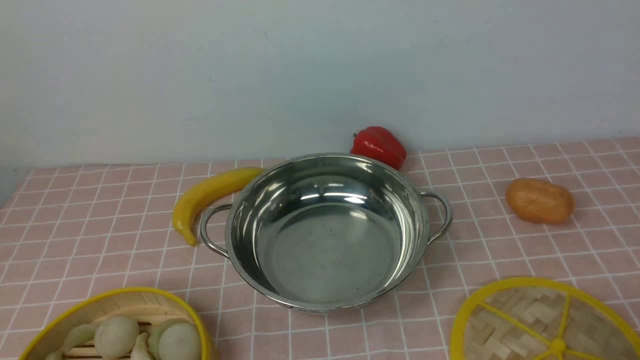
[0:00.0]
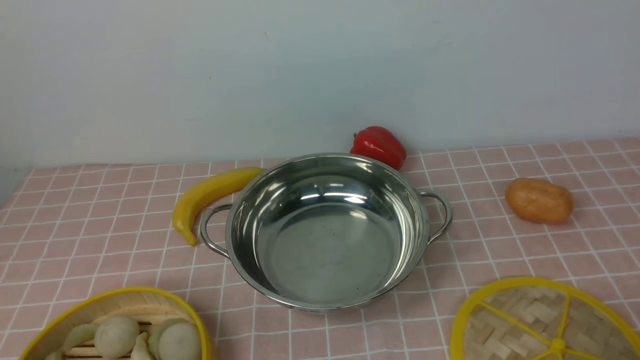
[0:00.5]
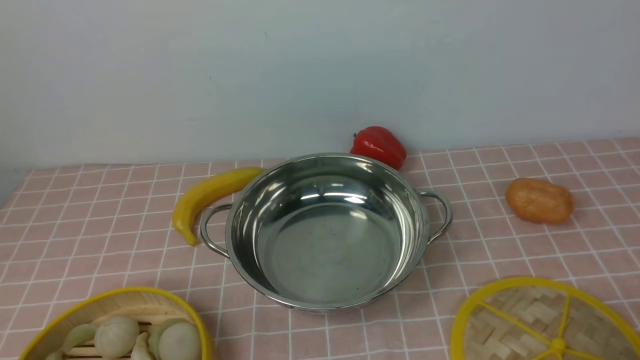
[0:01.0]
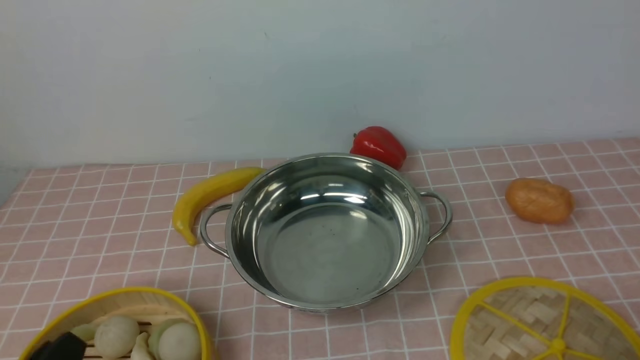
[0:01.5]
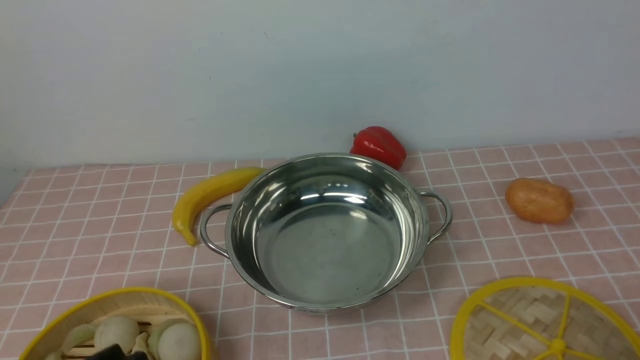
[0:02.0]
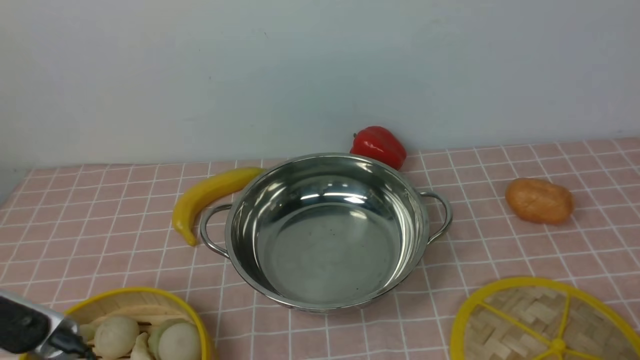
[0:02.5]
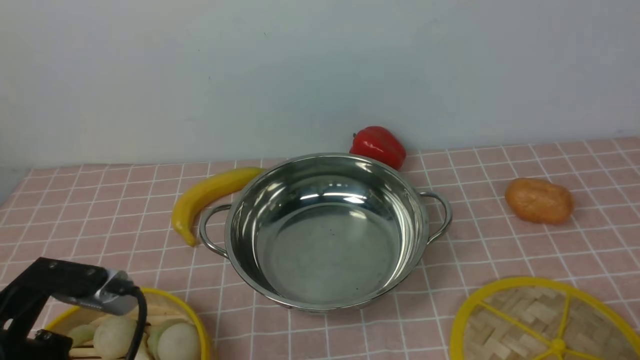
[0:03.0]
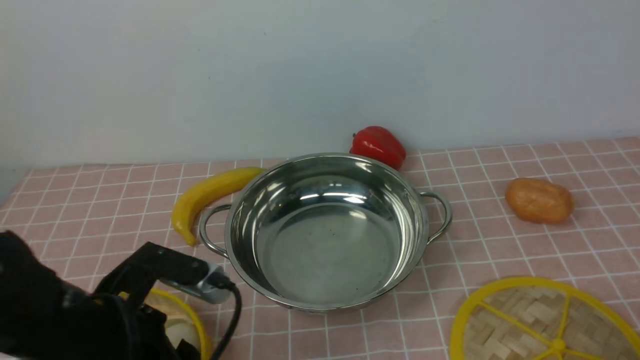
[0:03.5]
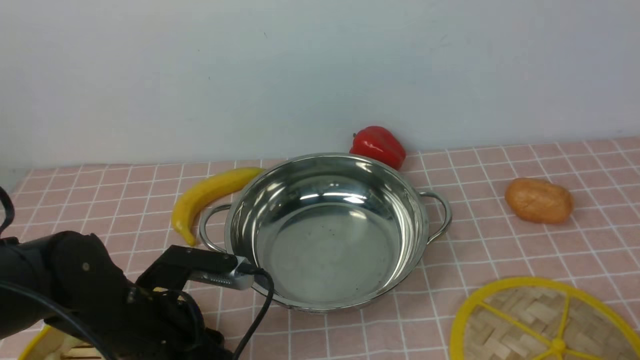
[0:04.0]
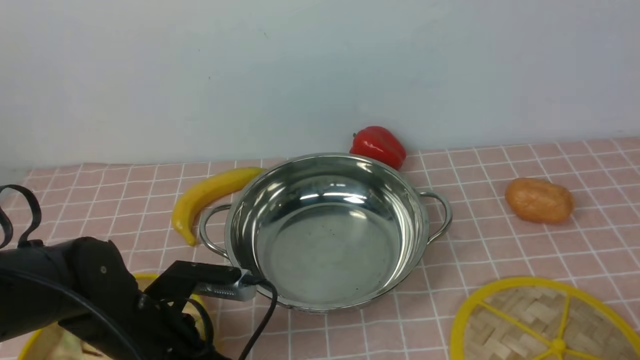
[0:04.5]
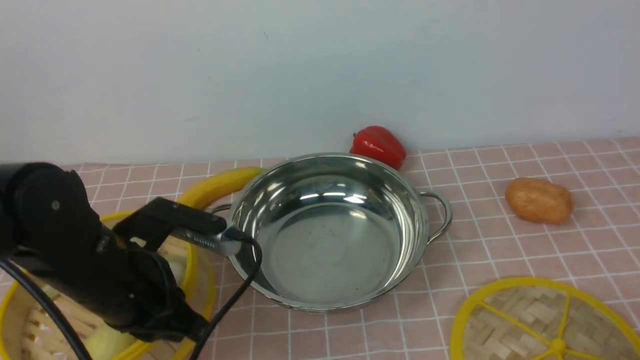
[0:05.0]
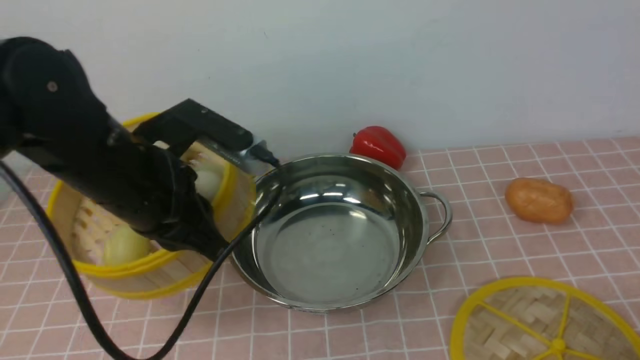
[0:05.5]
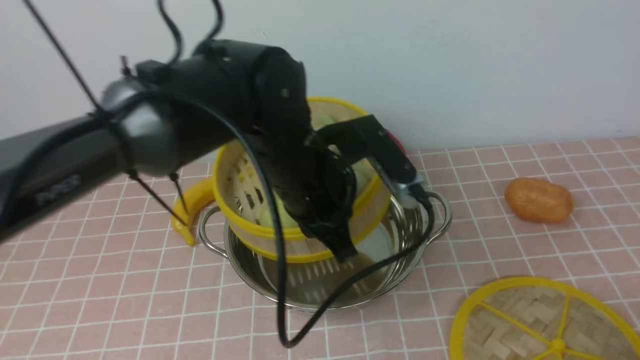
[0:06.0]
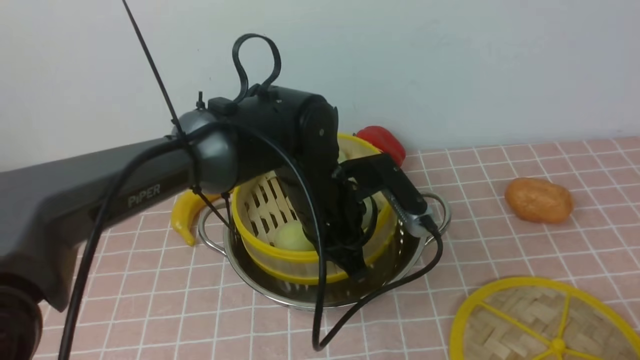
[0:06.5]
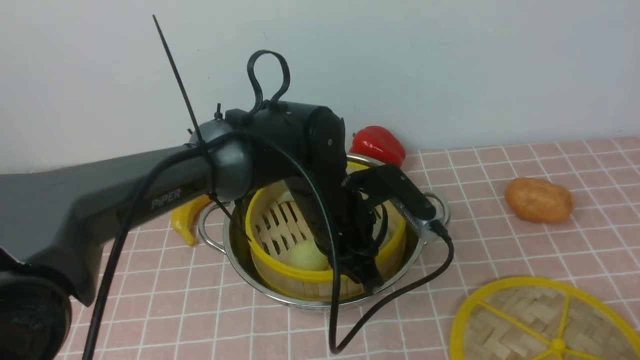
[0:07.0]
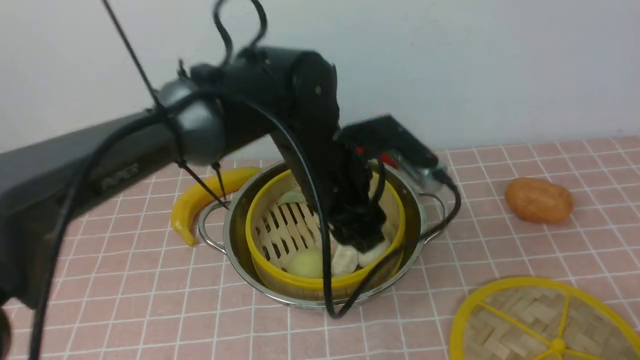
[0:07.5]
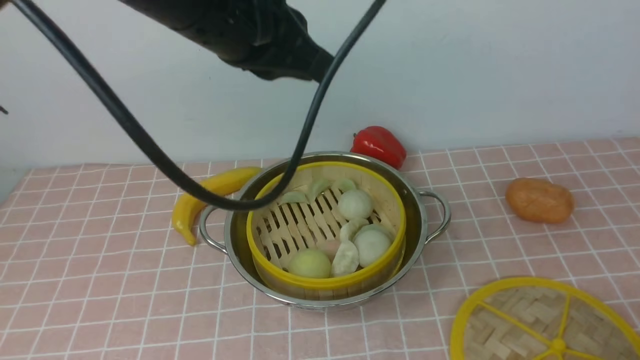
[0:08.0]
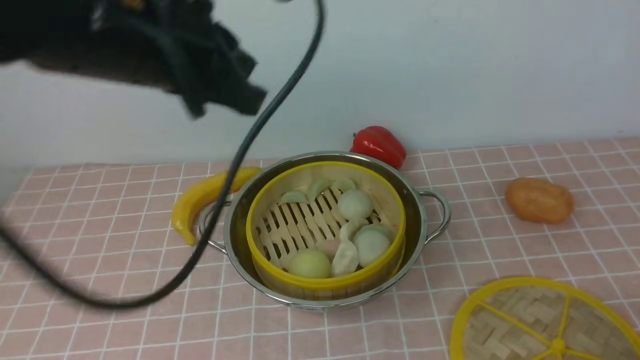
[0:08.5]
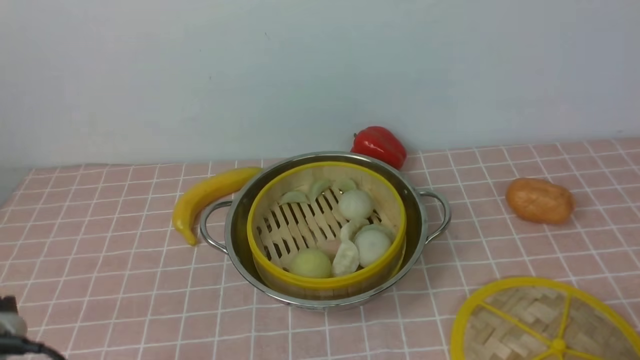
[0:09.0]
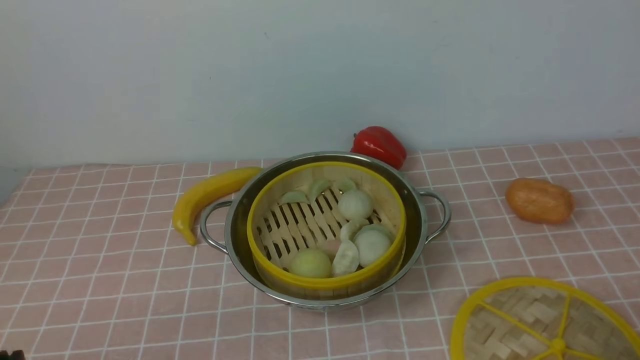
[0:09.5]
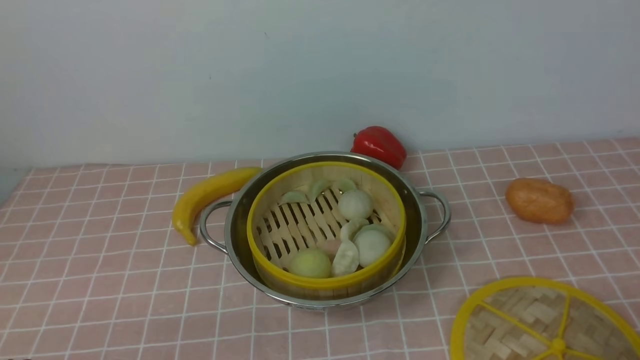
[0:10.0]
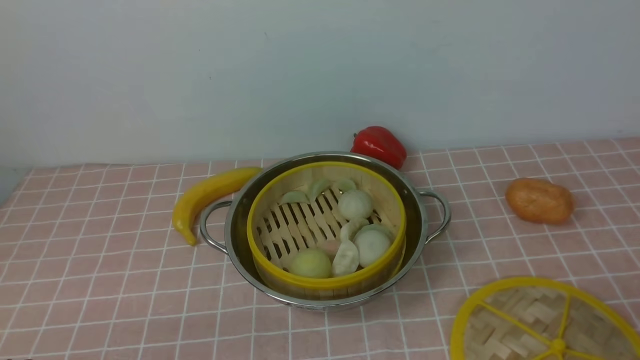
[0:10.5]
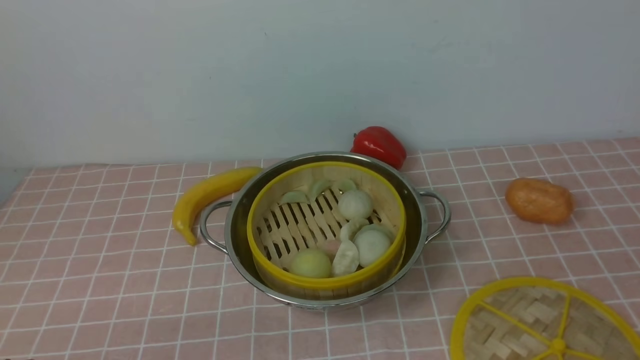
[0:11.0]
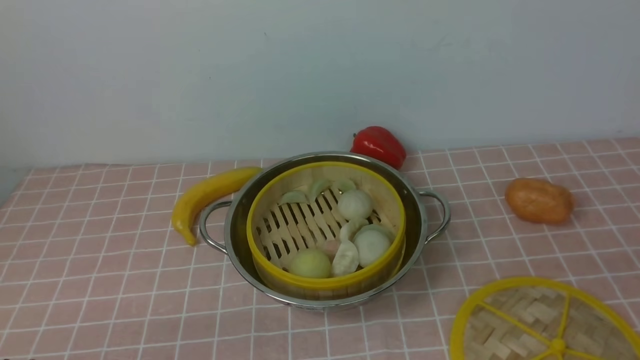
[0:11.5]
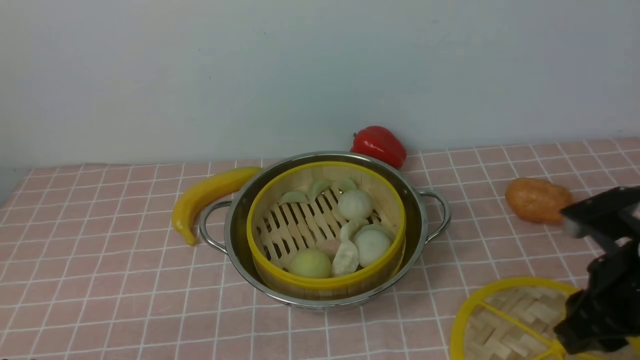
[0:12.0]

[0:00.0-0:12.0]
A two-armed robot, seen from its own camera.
Task of the whole recording: place the steamer in the pot on the pink tablecloth, and put the lid on the steamer.
Step, 0:00.0 to 0:04.5: use the left arm to lift the steamer closest to it.
Step, 0:05.0 to 0:07.0: use the left arm to put the steamer into the iron steamer pot in the middle.
0:02.0 to 0:04.0: The left gripper heads forward and downward, covering about 20 cm.
0:04.0 to 0:06.0: The left gripper travels to the right, forward and upward by about 20 cm, and closes up.
0:06.0 to 0:08.0: The left gripper goes about 15 cm upward, and opens and closes again.
0:08.0 to 0:10.0: The left gripper heads backward, downward and to the left, covering about 40 cm.
0:10.0 to 0:12.0: The right gripper travels forward by some 15 cm.

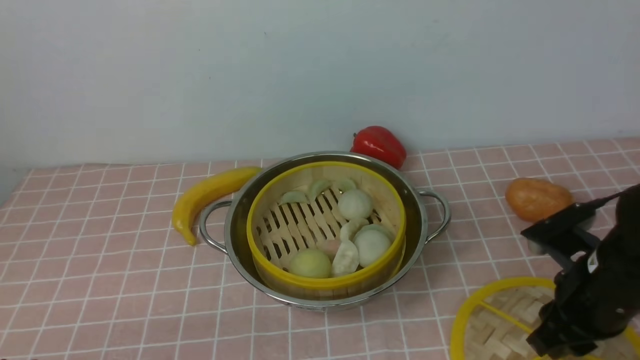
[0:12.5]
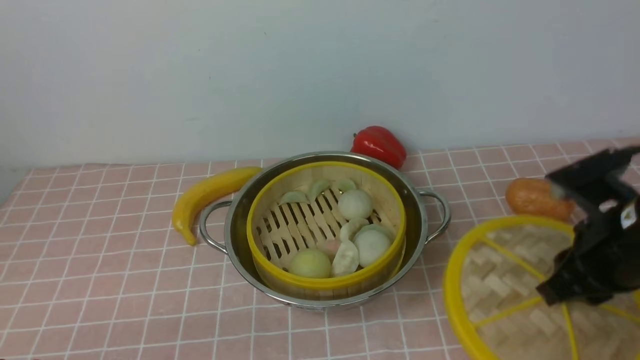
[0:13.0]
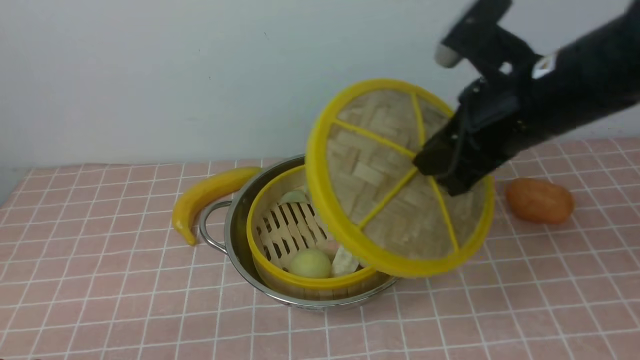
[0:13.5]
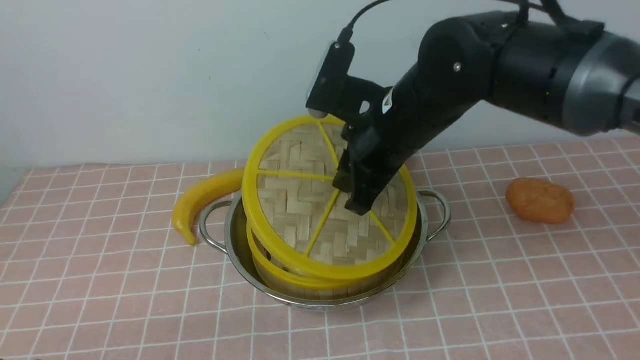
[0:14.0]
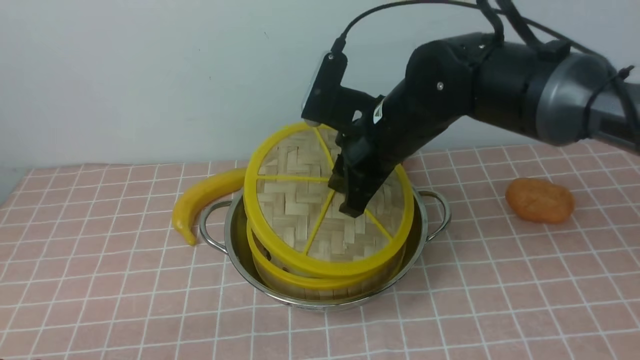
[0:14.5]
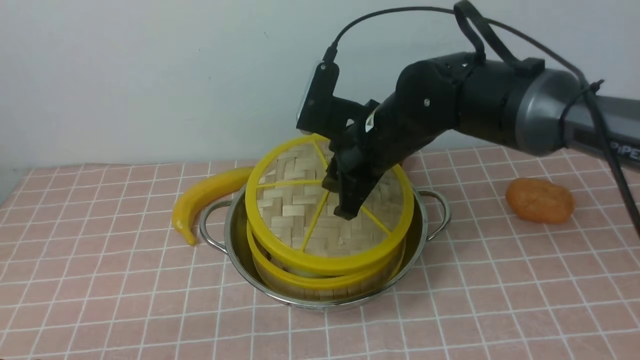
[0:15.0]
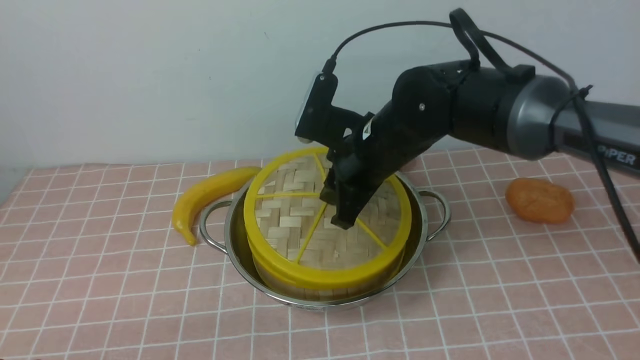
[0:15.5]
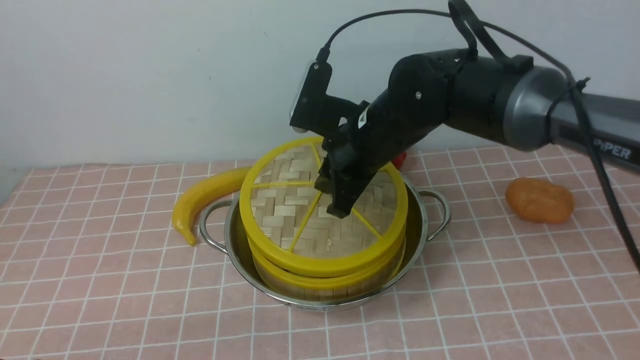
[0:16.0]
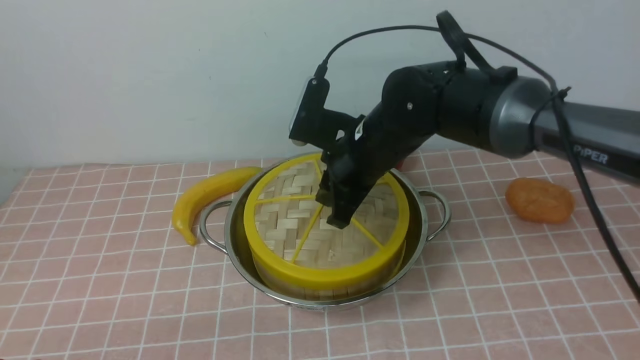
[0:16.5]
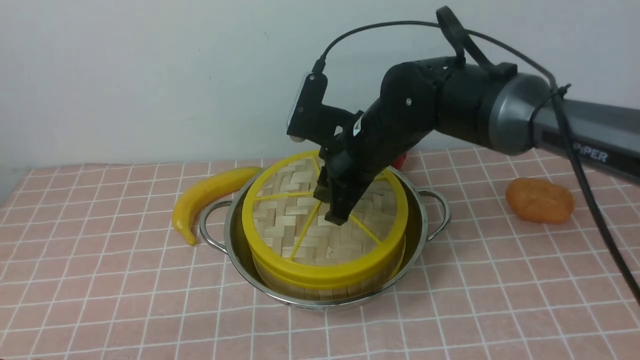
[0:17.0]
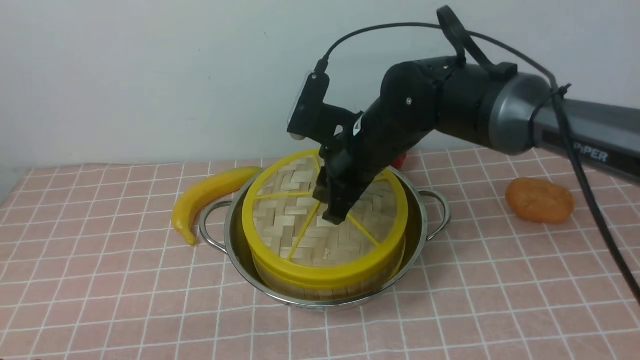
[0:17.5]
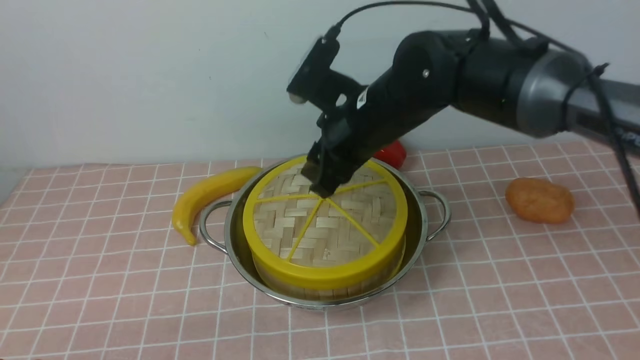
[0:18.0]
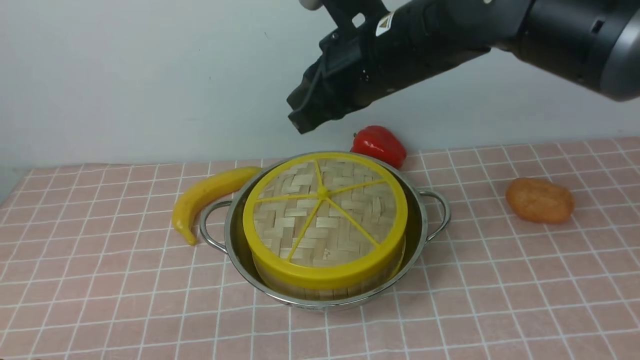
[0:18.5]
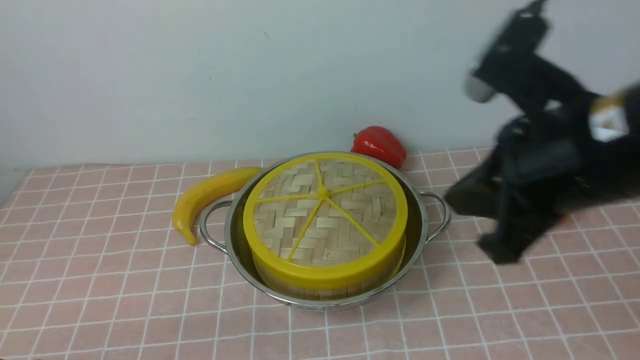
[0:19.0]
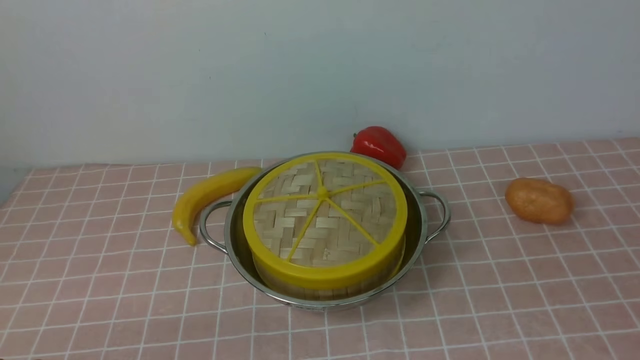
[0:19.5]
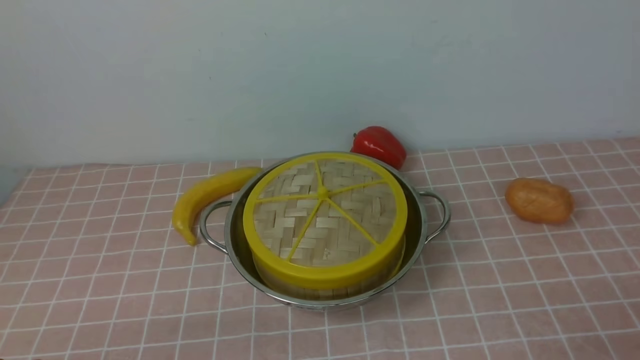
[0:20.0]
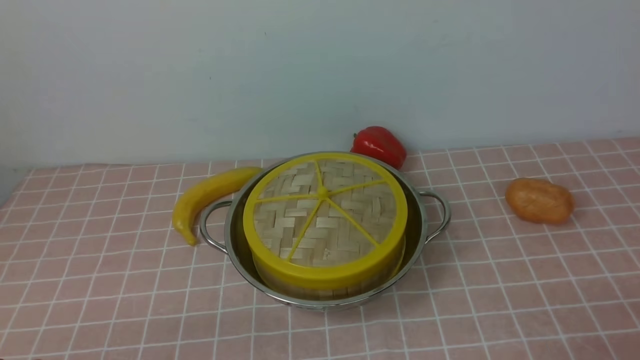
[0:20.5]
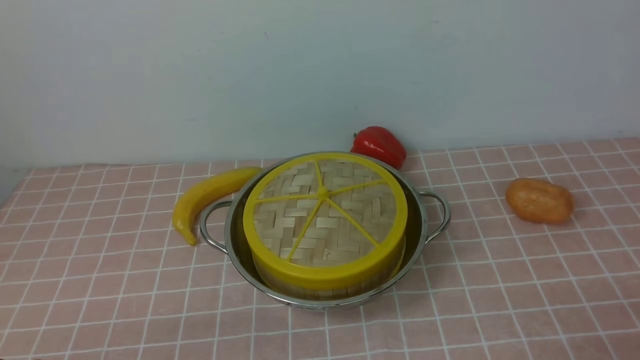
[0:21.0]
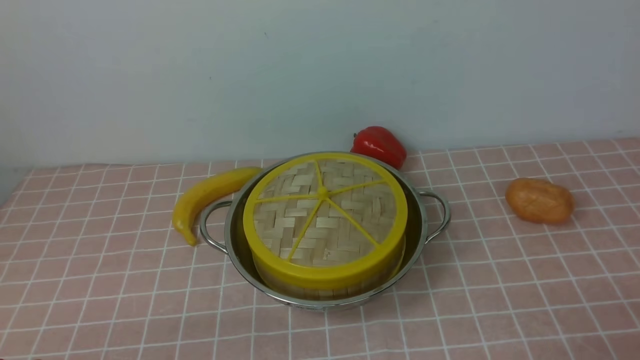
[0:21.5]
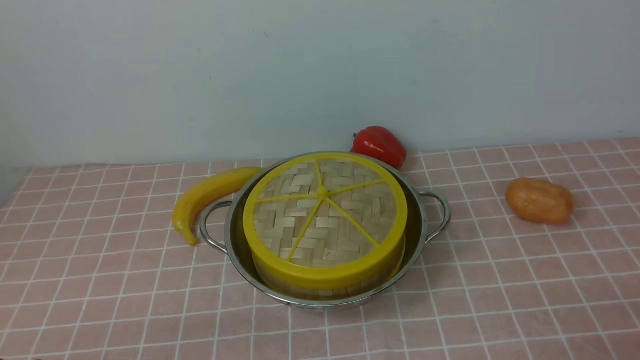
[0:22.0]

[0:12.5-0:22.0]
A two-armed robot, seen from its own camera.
Task of the whole recording: place the steamer in the pot on the pink tablecloth, and put the lid on the steamer.
Step, 0:13.0 to 0:18.0: use the right arm to place the steamer lid on the steamer.
0:12.5 to 0:14.5: The right gripper is displaced to the left, forward and upward by some 25 cm.
0:14.5 to 0:16.5: The grippers make only small movements.
0:16.5 to 0:18.0: The right gripper is displaced upward by about 5 cm.
0:18.0 to 0:20.0: The right gripper travels backward and to the right by roughly 40 cm, and closes its fingers.
